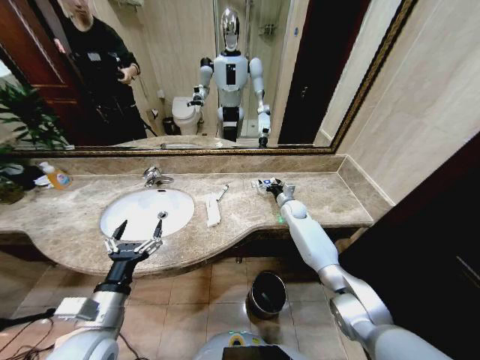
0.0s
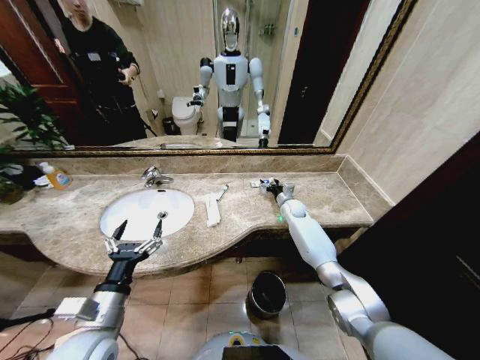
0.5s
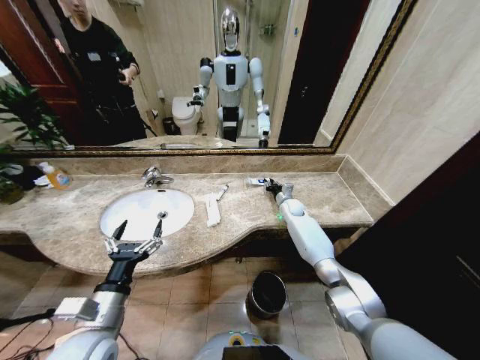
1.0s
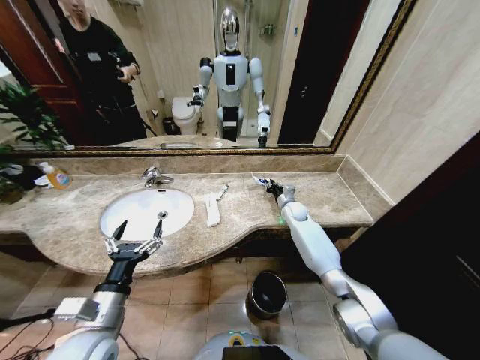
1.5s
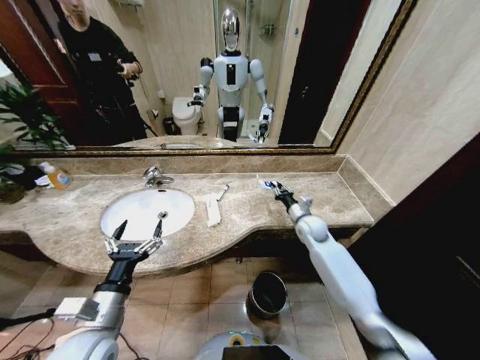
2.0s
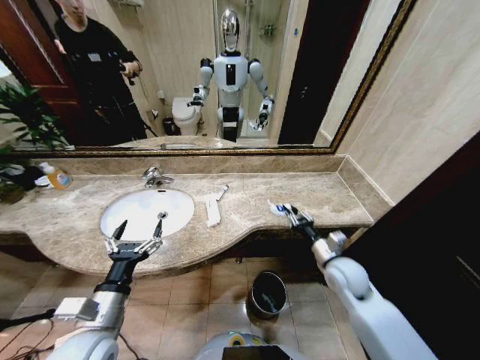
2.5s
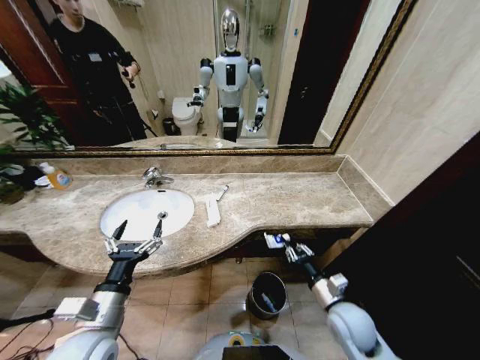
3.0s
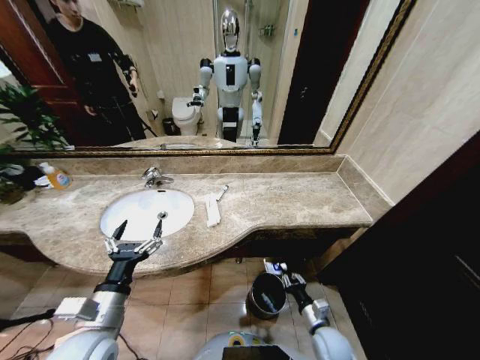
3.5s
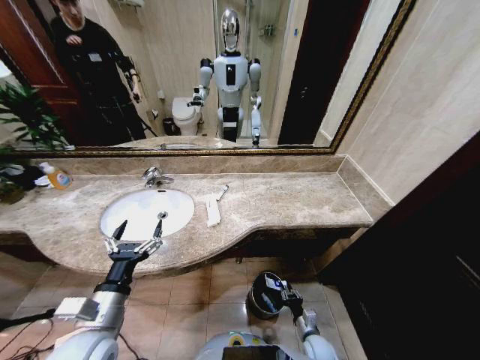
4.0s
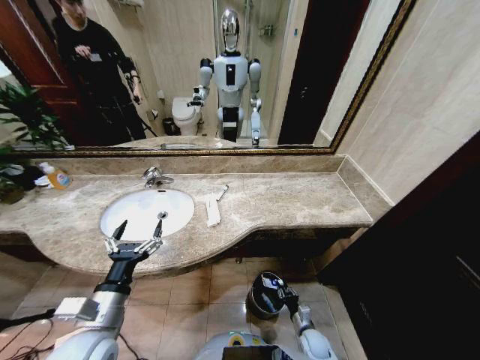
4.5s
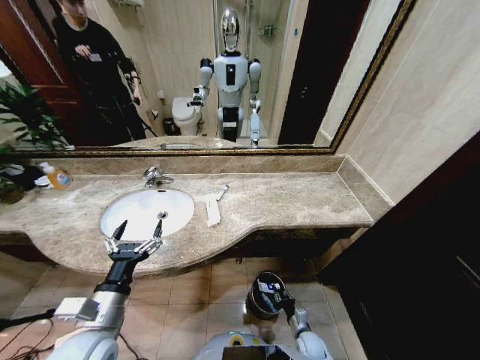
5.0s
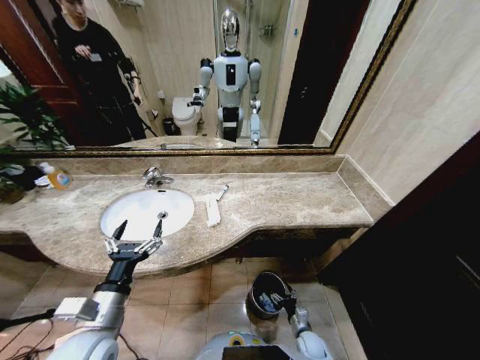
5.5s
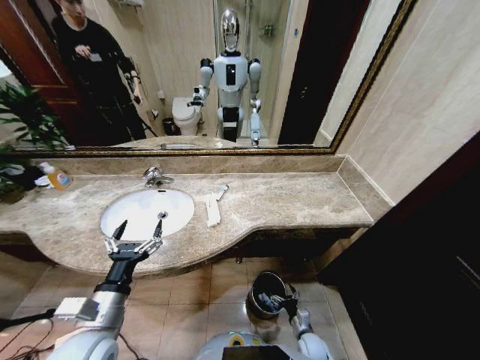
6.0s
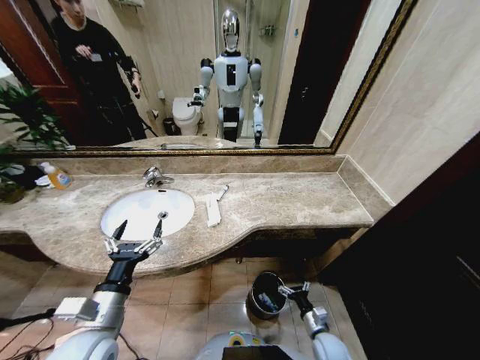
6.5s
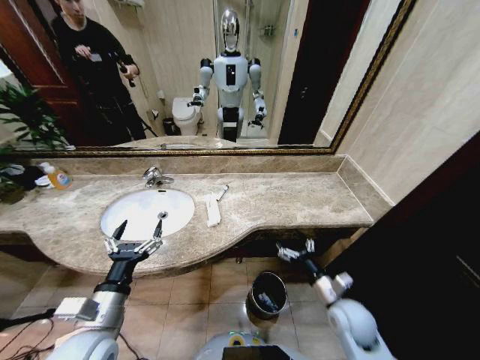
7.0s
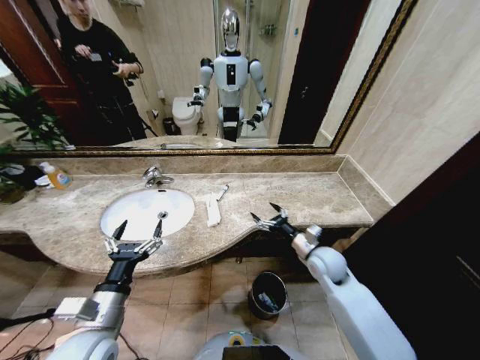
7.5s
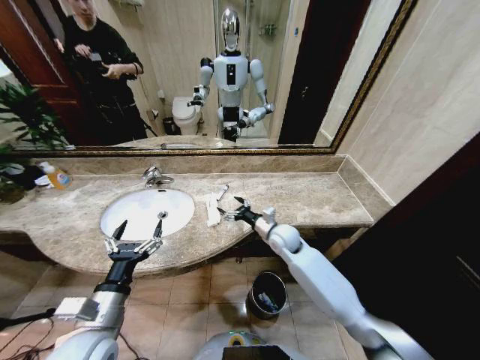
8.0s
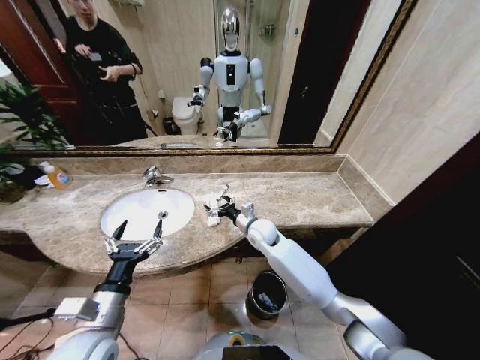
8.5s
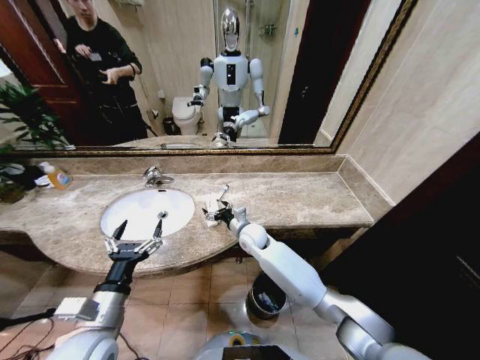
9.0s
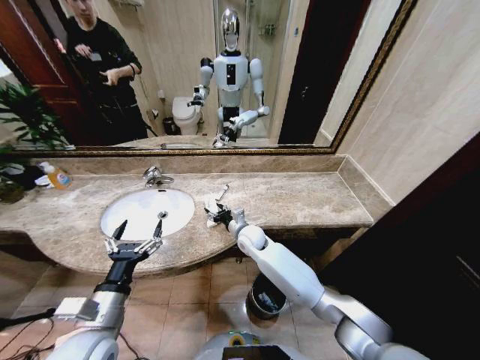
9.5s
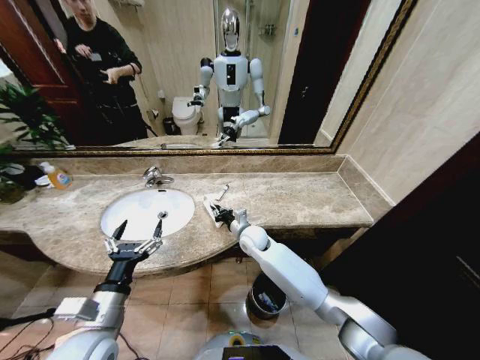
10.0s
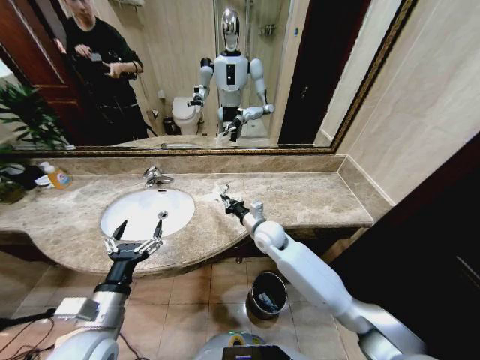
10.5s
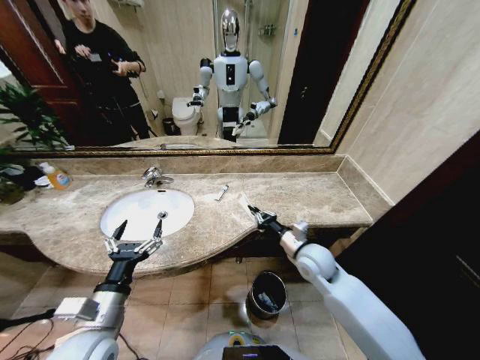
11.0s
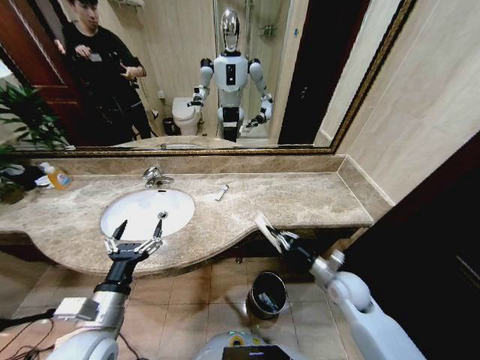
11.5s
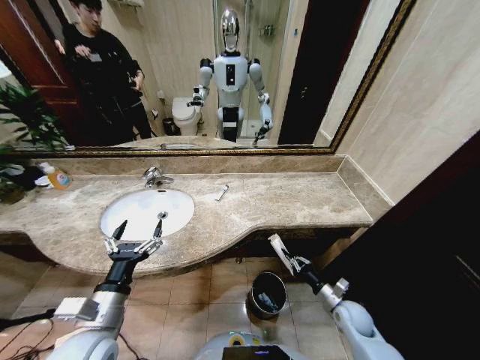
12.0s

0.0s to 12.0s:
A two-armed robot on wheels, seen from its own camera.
Task of the whole recording: Pick up the trash from the sink and place it in the trash bin.
0.0s to 2.0s: The right gripper heads backward, covering some 10 cm, and closes its fingers.
2.0s to 4.0s: The right gripper shifts some 40 cm backward and downward.
4.0s to 6.0s: The right gripper opens up.
6.0s to 8.0s: The right gripper travels upward and forward by roughly 40 cm.
8.0s to 10.0s: The right gripper heads to the left, covering some 10 cm, and closes its fingers.
10.0s to 12.0s: The right gripper shifts roughly 40 cm to the right, backward and downward.

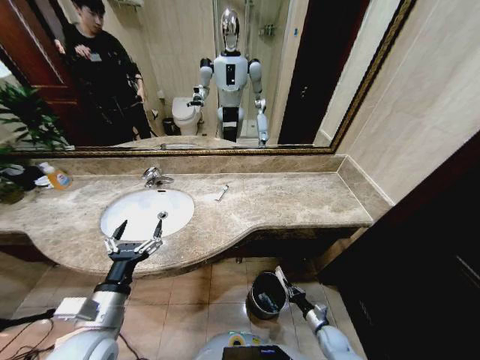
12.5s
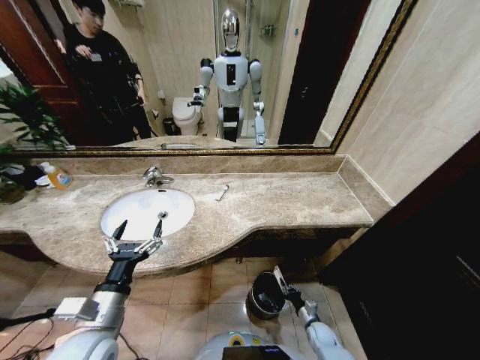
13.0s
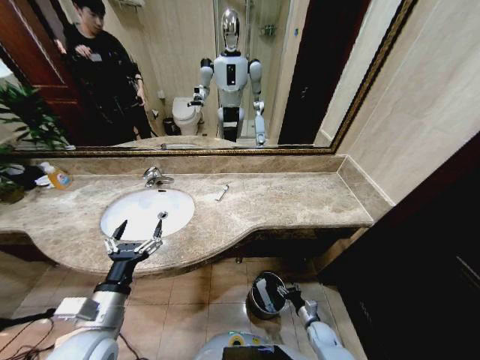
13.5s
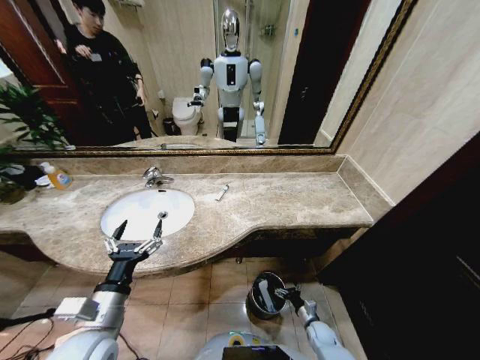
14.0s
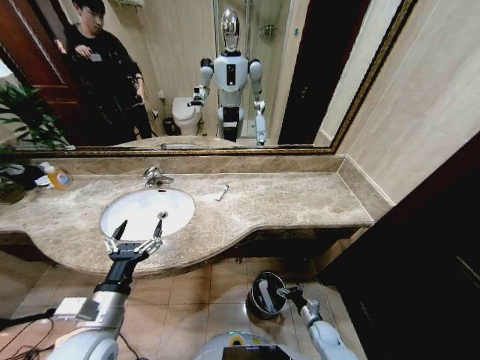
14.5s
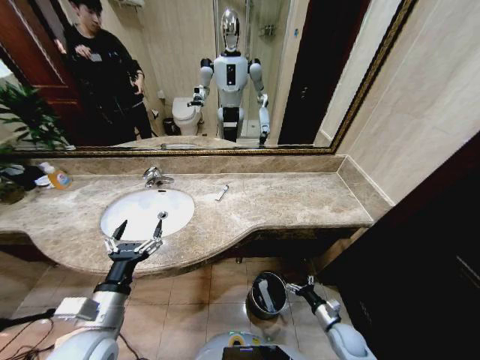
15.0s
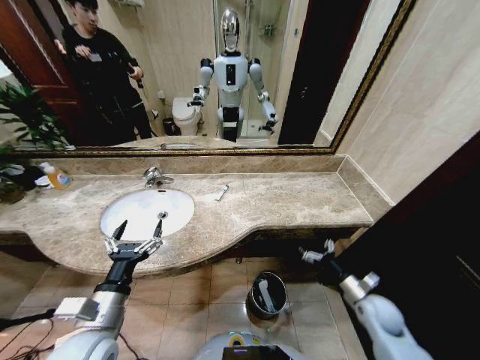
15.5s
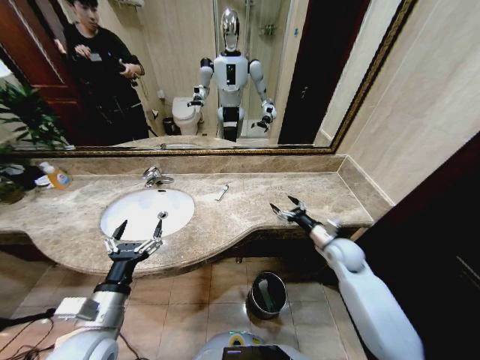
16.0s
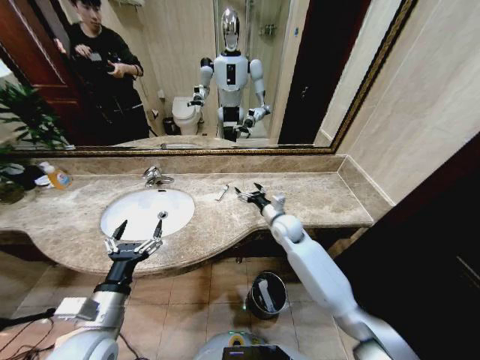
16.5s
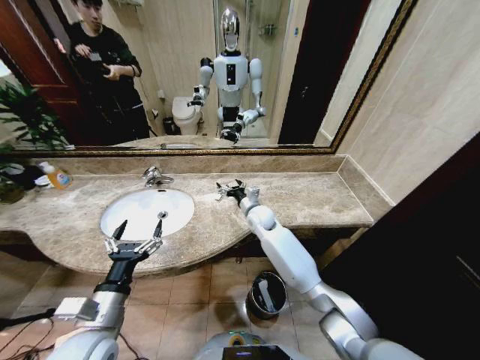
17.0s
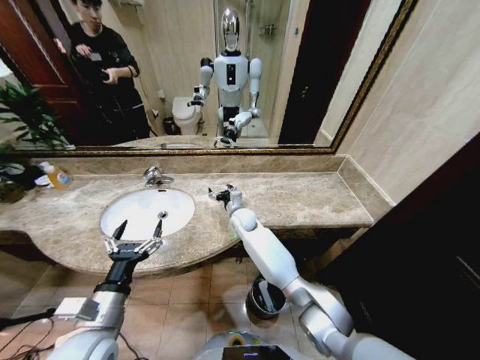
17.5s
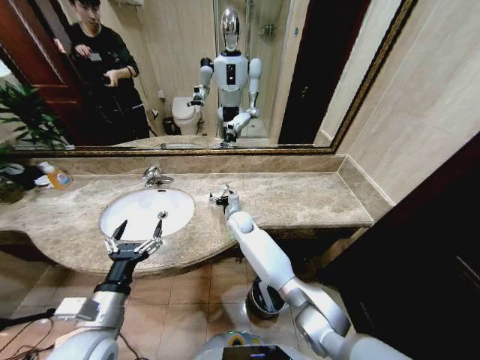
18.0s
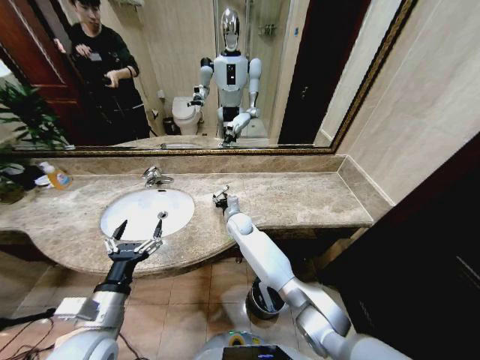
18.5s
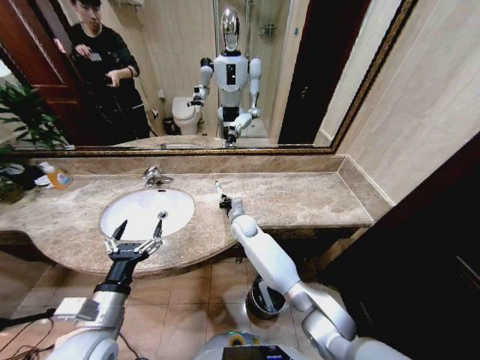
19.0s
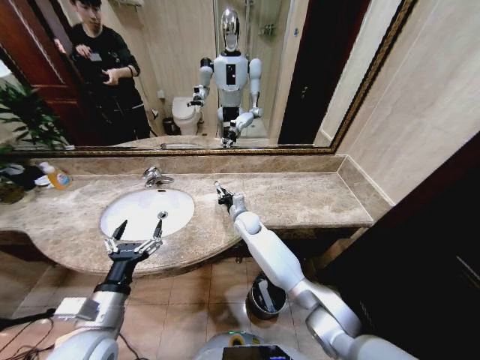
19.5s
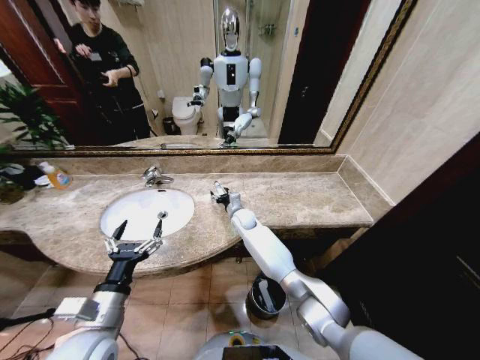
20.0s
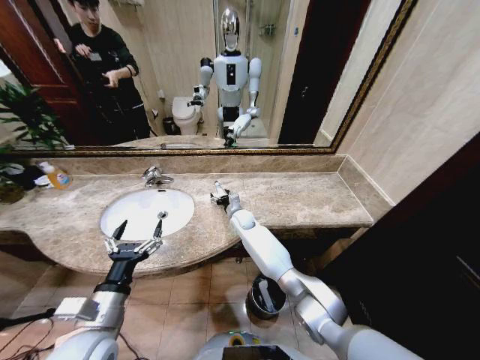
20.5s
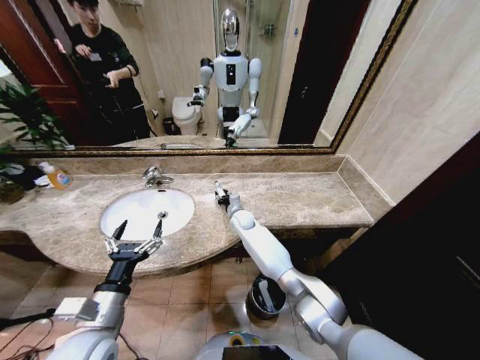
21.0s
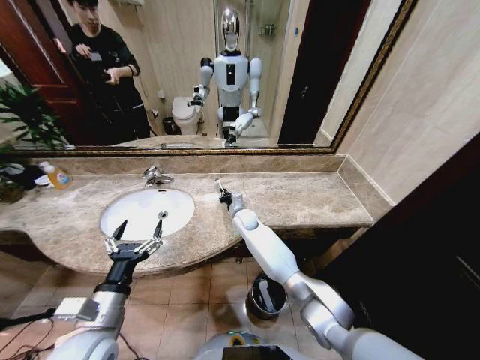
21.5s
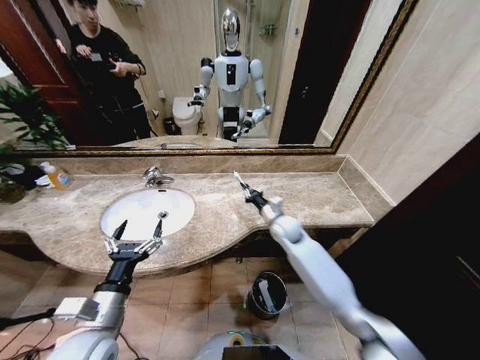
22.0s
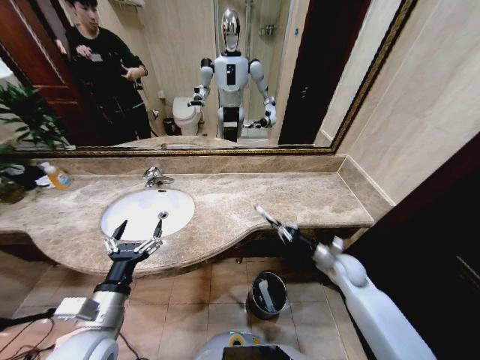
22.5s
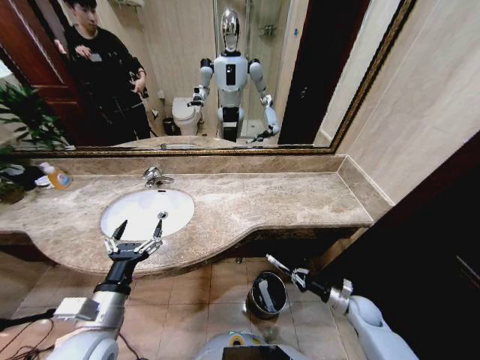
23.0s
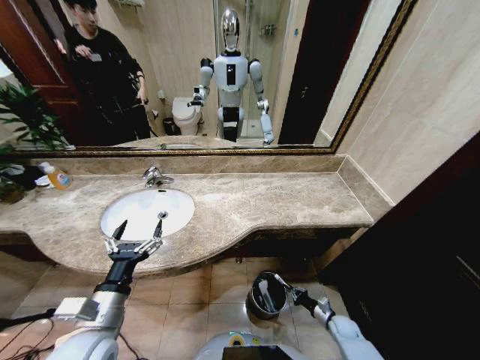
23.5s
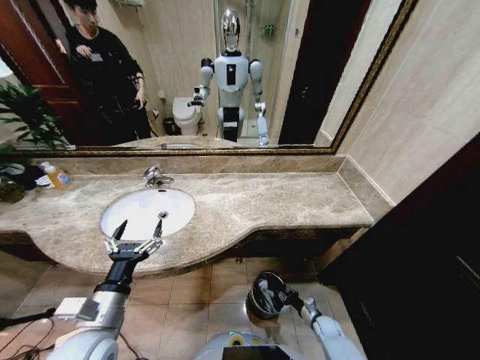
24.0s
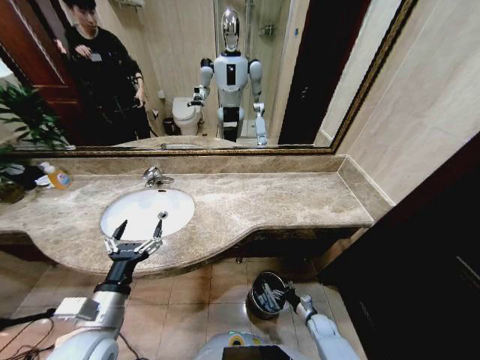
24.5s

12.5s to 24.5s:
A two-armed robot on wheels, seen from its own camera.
Task of the whole recording: Pick up the trash from the sink and place it in the trash bin.
12.5s to 14.5s: The right gripper opens its fingers.
14.5s to 16.5s: The right gripper heads upward, forward and to the left, covering some 40 cm.
16.5s to 18.5s: The right gripper moves to the left, about 15 cm, and closes its fingers.
18.5s to 20.5s: The right gripper closes and opens again.
20.5s to 22.5s: The right gripper heads to the right and backward, covering approximately 40 cm, and closes its fingers.
22.5s to 24.5s: The right gripper goes some 30 cm downward, and opens.

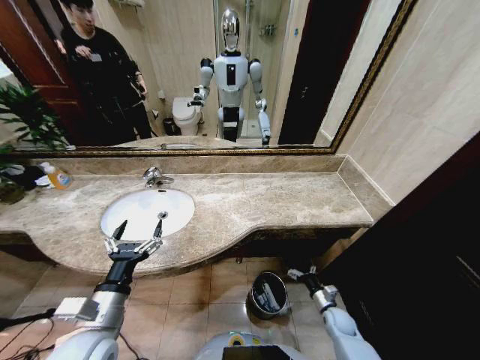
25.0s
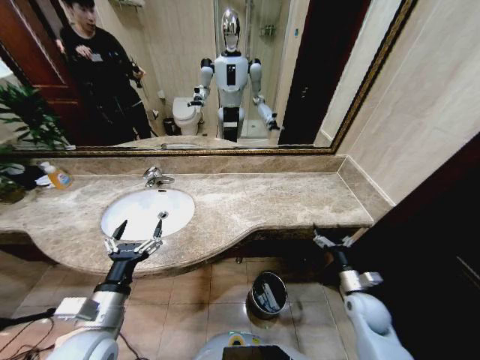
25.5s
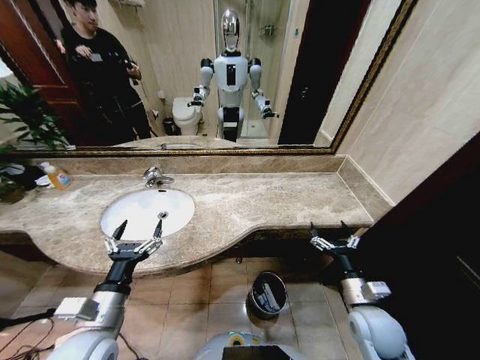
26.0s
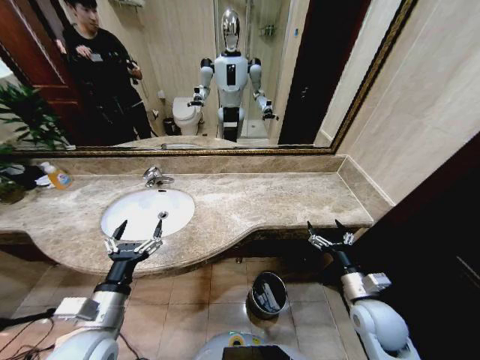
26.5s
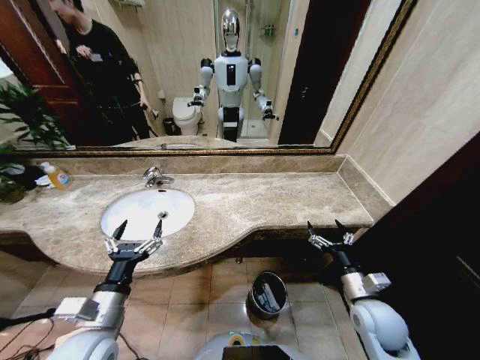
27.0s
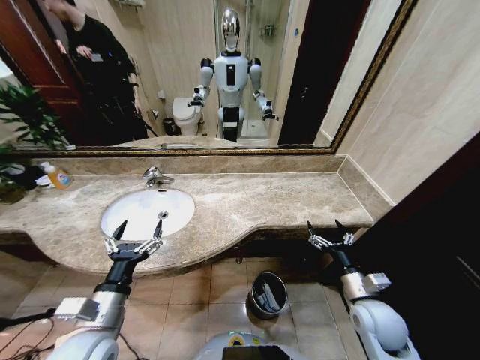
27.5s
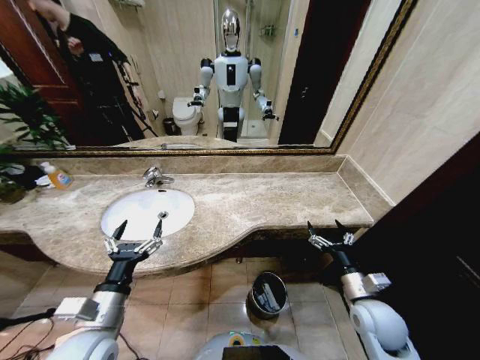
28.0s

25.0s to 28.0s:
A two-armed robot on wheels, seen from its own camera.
Task of the whole recording: Pick up the trash from the sink and place it in the trash bin.
25.0s to 26.5s: The right gripper shifts approximately 25 cm upward.
26.5s to 28.0s: Neither gripper changes place.
